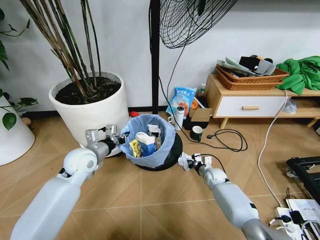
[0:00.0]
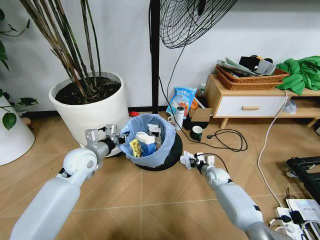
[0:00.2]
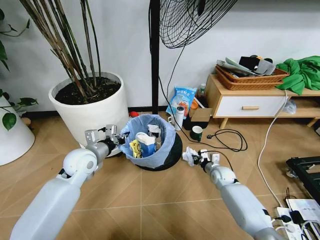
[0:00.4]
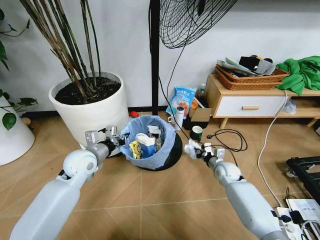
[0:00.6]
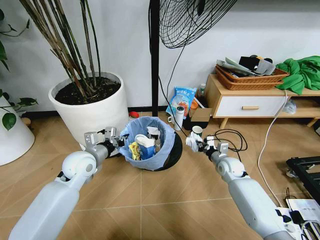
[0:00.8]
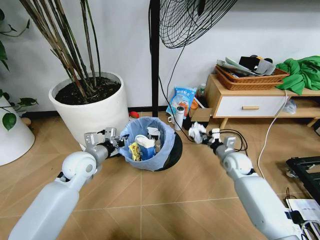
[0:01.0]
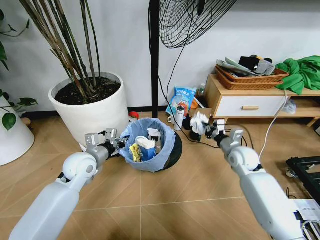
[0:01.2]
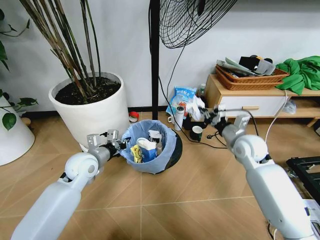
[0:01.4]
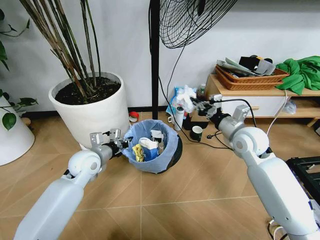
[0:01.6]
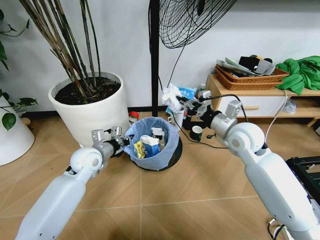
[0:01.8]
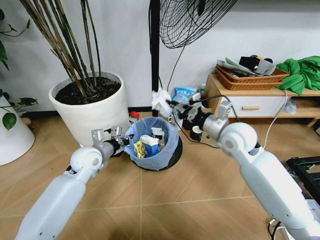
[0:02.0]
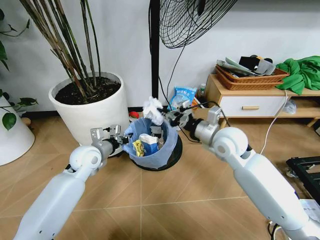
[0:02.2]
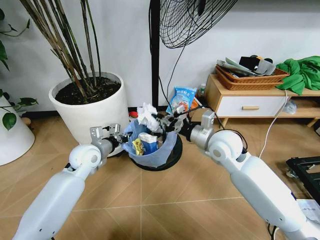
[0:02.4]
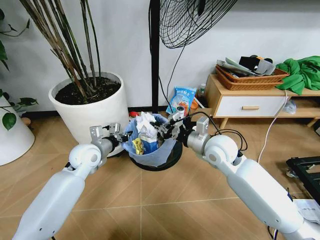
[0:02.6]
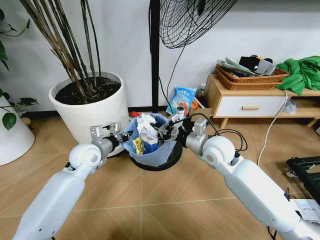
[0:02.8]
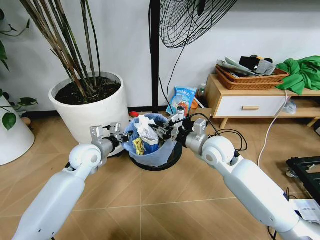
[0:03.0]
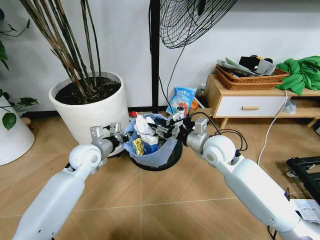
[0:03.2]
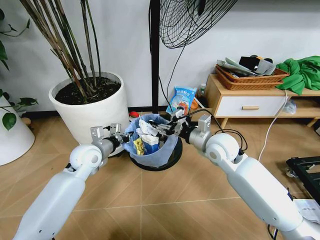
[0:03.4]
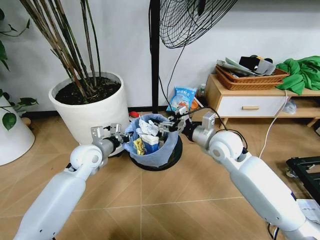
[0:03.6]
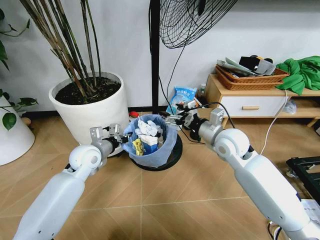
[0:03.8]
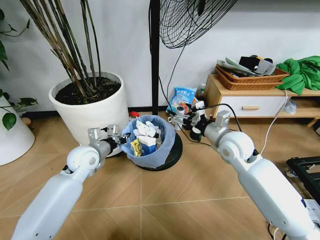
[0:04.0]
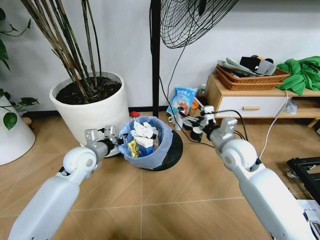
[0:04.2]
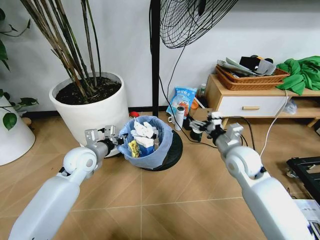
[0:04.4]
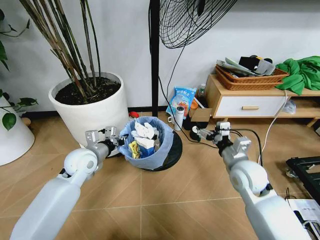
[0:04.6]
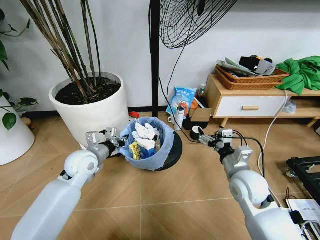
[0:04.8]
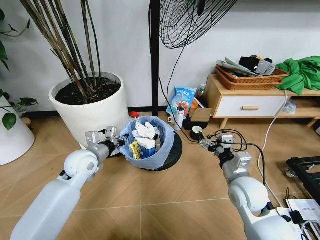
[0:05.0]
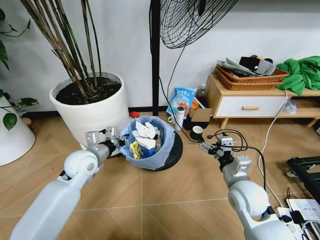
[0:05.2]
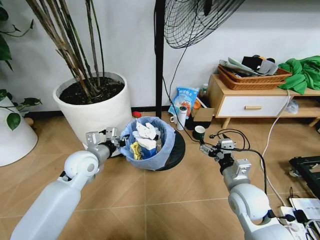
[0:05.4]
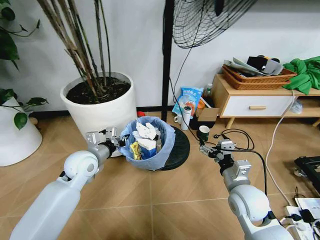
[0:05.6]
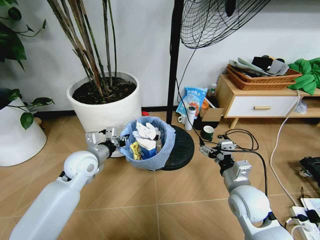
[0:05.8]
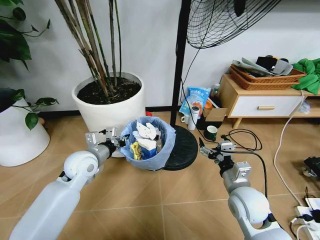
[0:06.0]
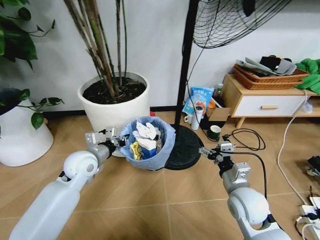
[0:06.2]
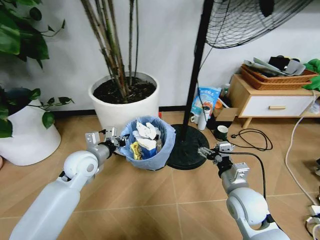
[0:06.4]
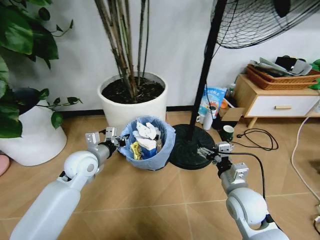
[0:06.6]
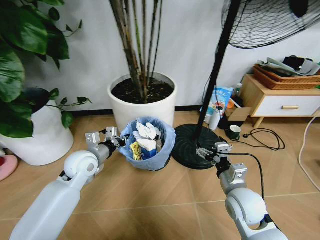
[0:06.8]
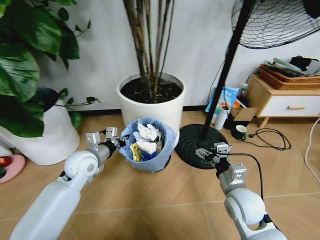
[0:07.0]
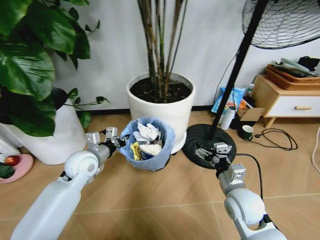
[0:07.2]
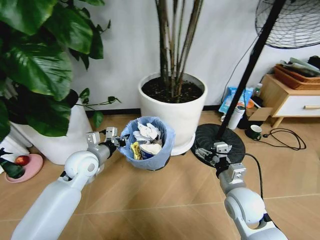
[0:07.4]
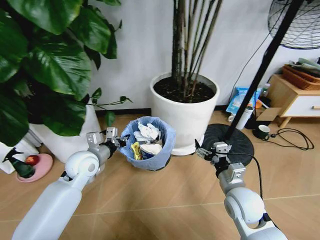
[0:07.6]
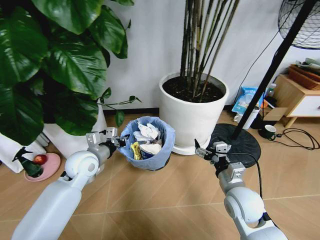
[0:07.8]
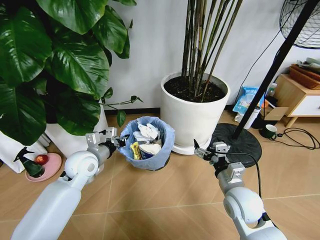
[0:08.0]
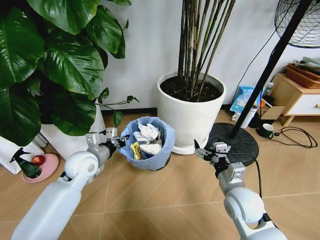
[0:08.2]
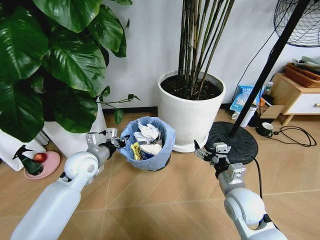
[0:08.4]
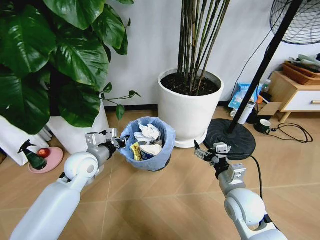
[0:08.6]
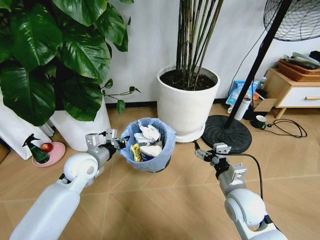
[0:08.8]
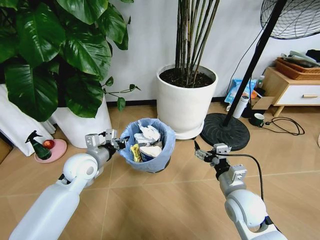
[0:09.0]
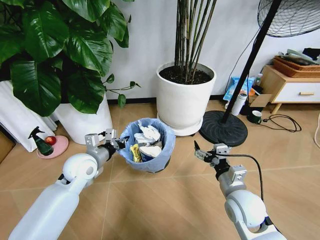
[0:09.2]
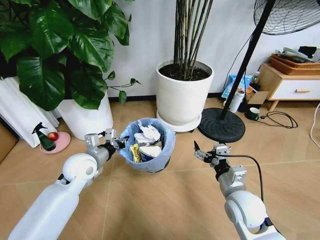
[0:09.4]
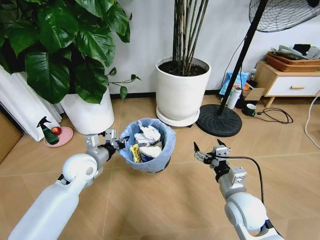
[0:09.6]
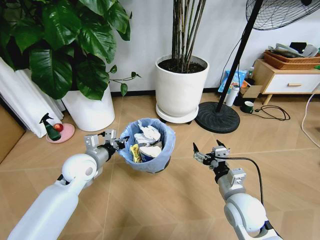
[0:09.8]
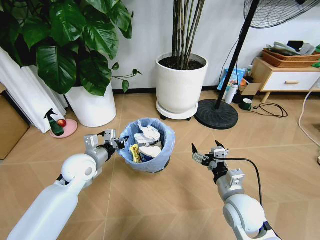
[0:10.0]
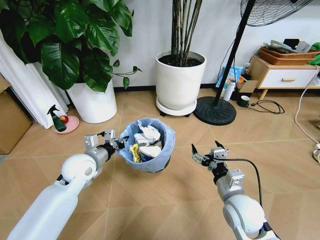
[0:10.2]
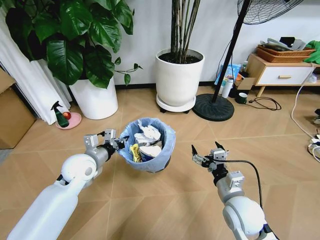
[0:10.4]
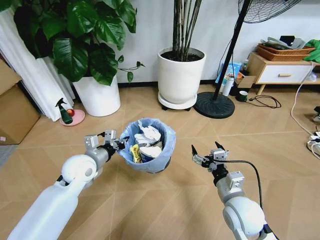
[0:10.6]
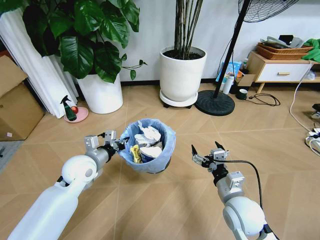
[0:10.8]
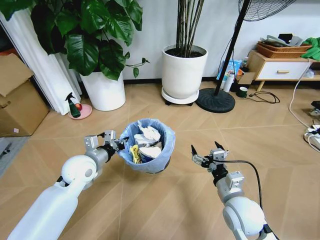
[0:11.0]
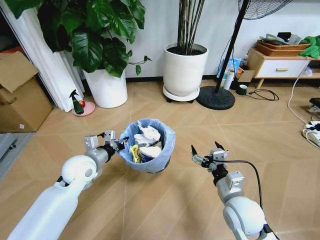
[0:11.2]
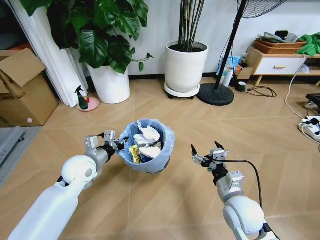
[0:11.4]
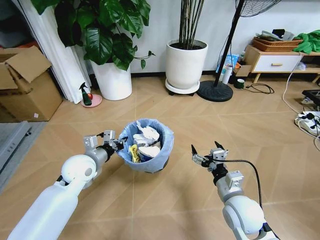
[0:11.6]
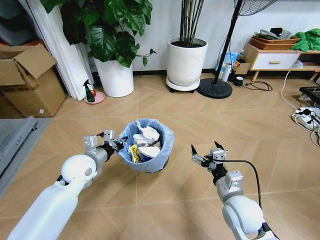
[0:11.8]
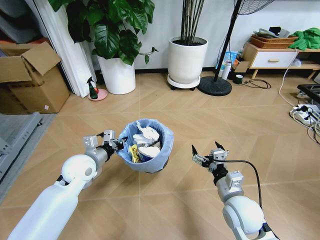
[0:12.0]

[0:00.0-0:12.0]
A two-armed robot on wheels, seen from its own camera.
Task of the whole recording: Pick up the trash bin and place the garbage on the floor into it.
0:00.0 to 0:01.6: The right gripper moves upward, about 35 cm.
0:01.6 to 0:03.0: The right gripper shifts about 10 cm to the left.
0:03.0 to 0:04.4: The right gripper shifts some 5 cm to the right, and opens.
0:04.4 to 0:06.0: The right gripper shifts roughly 10 cm backward and downward.

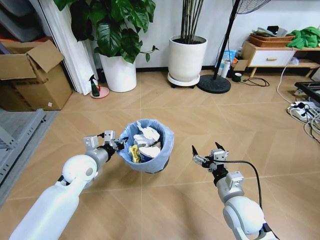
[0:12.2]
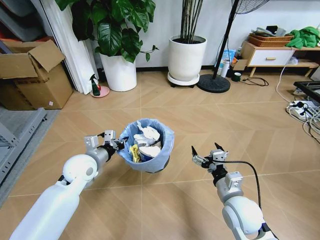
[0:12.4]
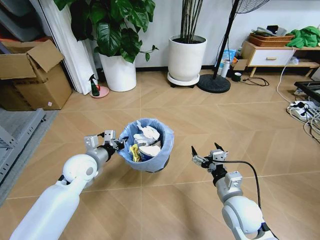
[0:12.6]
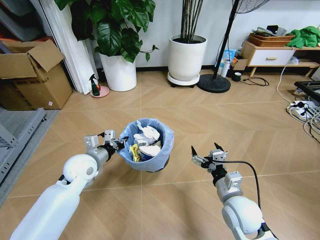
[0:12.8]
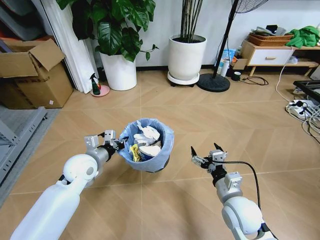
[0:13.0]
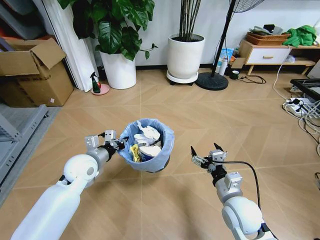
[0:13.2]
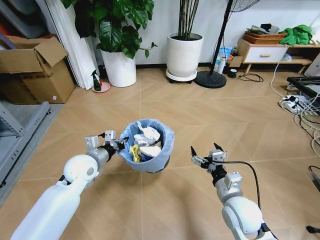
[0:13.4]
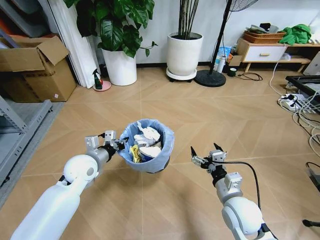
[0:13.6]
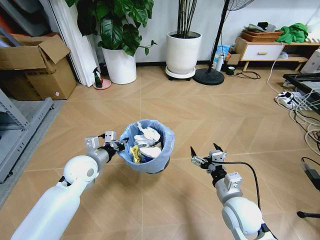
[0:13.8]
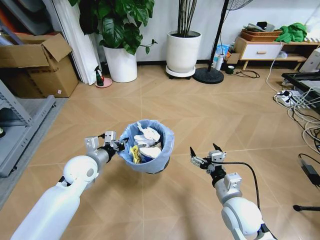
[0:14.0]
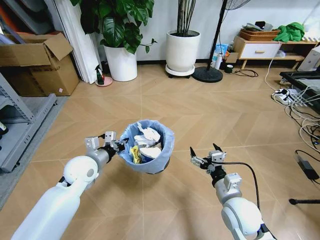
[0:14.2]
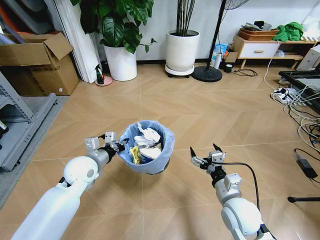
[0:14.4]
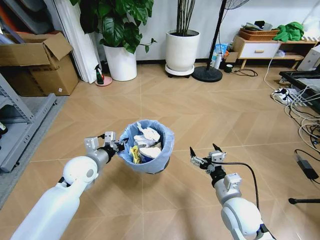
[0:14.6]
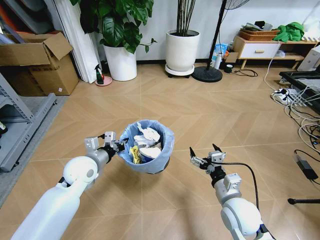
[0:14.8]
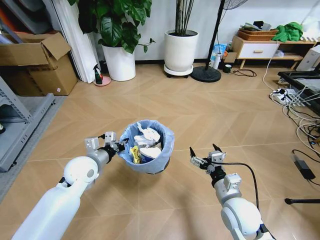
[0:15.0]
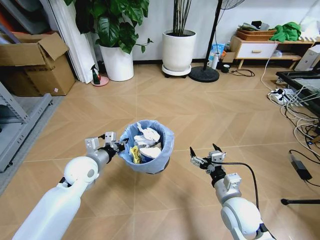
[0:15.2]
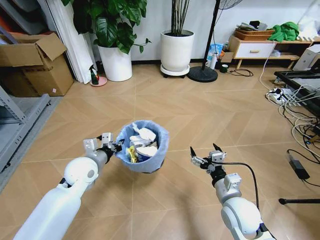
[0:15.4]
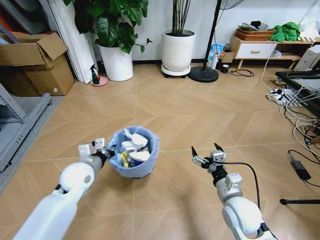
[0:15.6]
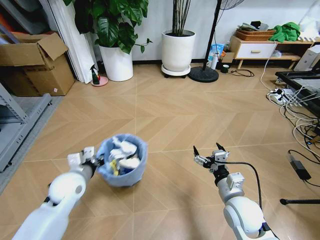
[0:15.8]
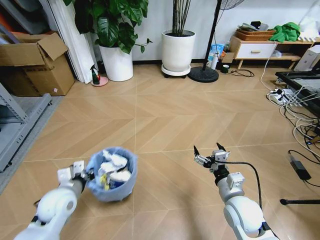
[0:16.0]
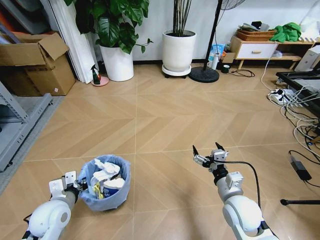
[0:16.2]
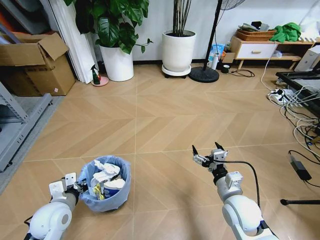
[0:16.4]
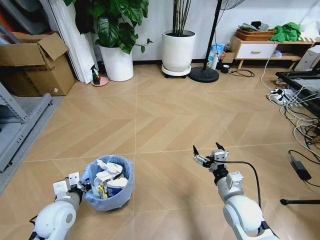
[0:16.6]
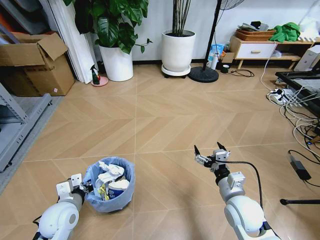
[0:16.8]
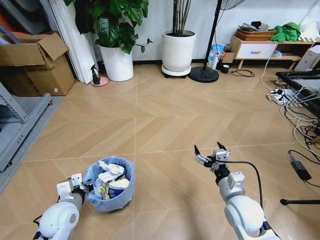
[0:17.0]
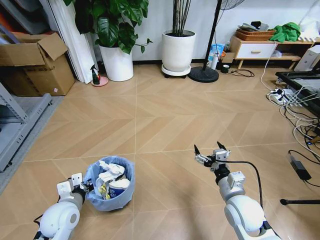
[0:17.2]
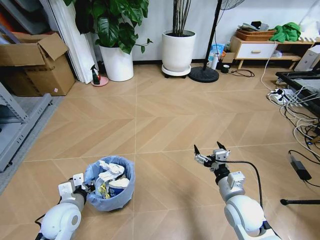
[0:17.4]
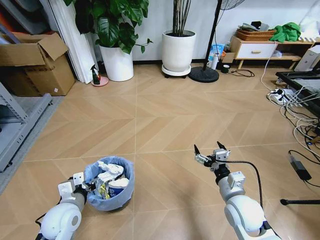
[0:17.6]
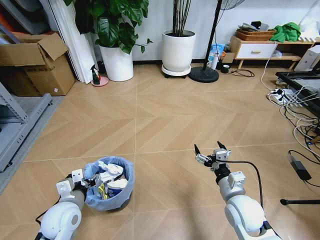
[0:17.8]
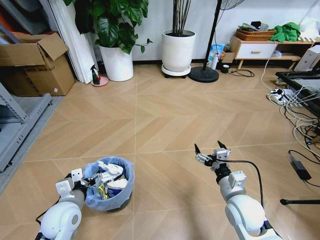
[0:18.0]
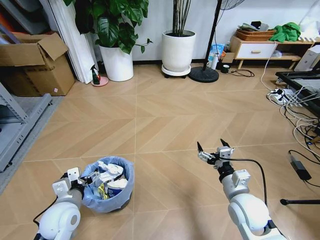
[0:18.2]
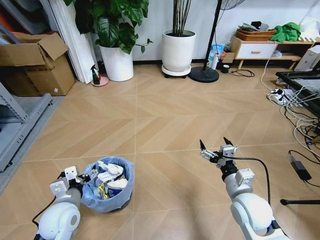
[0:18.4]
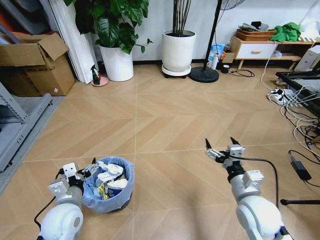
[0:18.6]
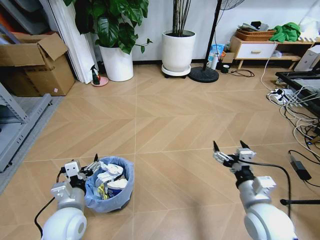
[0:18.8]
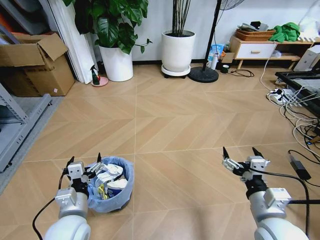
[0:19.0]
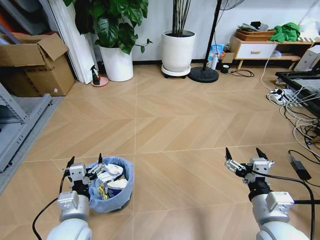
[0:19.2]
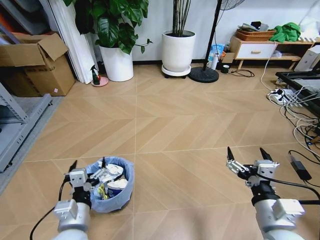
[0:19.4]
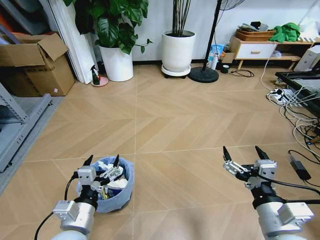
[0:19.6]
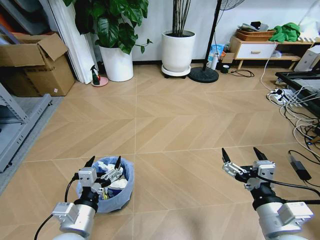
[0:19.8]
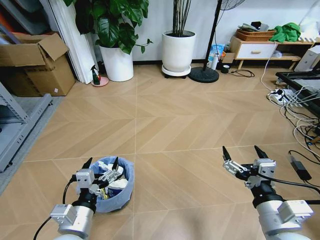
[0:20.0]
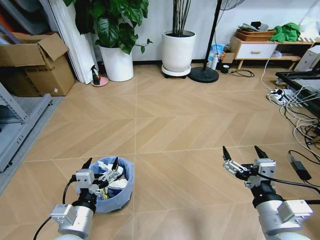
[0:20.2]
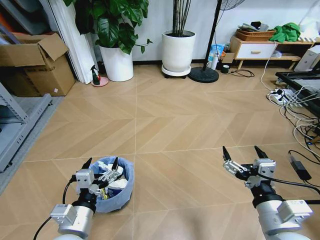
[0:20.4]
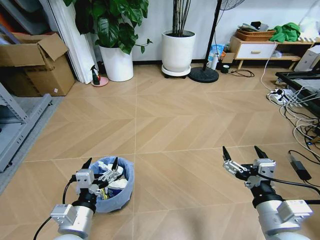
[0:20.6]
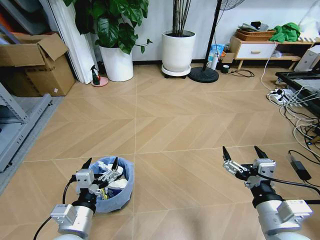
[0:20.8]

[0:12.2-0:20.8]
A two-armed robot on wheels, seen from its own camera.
Task of the whole recording: Pick up the trash bin and place the garbage on the floor into it.
0:15.0 to 0:16.6: The left gripper travels backward, to the left and downward by roughly 15 cm.
0:16.6 to 0:18.0: The left gripper opens up.
0:18.0 to 0:19.4: The grippers move only a little.
0:19.4 to 0:20.8: The left gripper goes some 15 cm backward, to the right and upward; the right gripper travels backward and upward by roughly 15 cm.

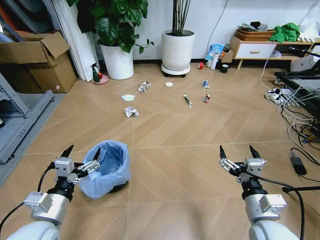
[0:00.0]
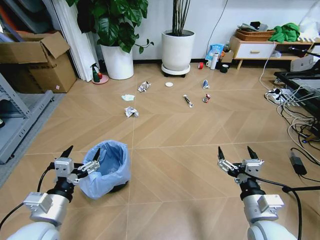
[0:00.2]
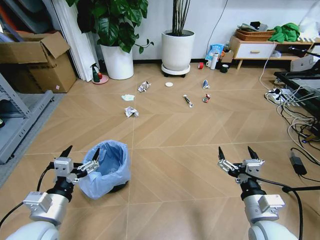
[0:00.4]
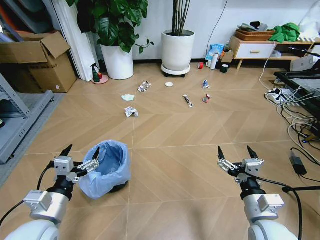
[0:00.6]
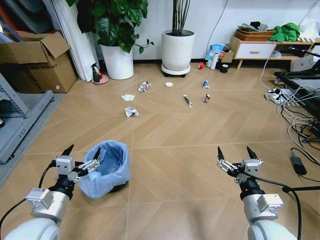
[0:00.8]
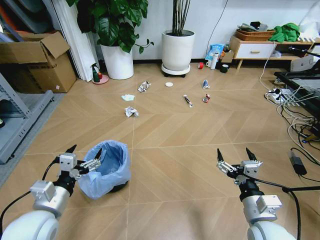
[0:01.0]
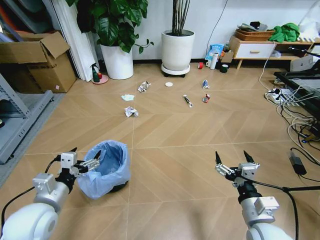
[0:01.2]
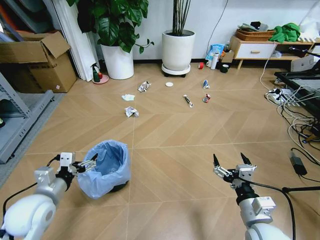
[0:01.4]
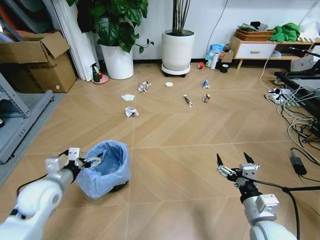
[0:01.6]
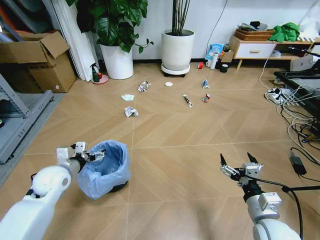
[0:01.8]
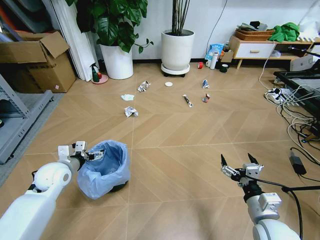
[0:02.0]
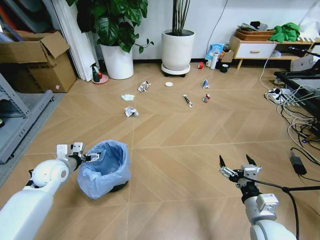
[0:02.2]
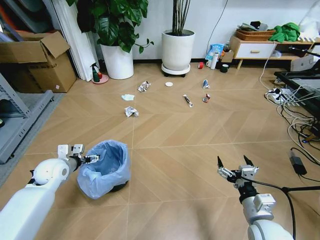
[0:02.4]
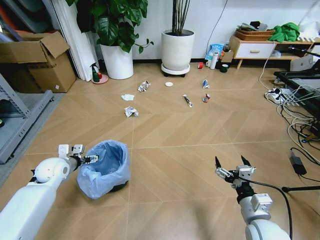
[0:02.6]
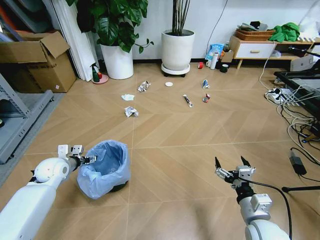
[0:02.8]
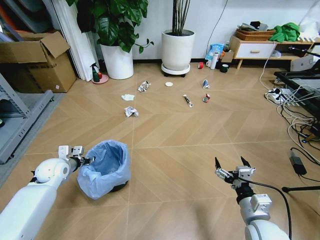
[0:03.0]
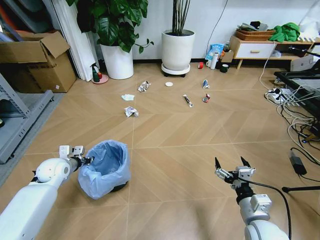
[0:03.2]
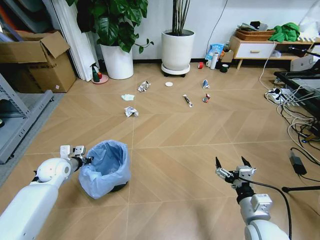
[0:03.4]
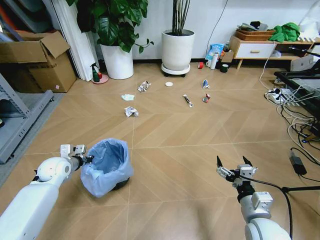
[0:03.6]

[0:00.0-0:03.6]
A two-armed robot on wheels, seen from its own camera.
Task of the whole recording: Pick up the trash bin and place the garbage on the floor into it.
0:01.8 to 0:03.6: The left gripper goes some 5 cm forward, and closes.
